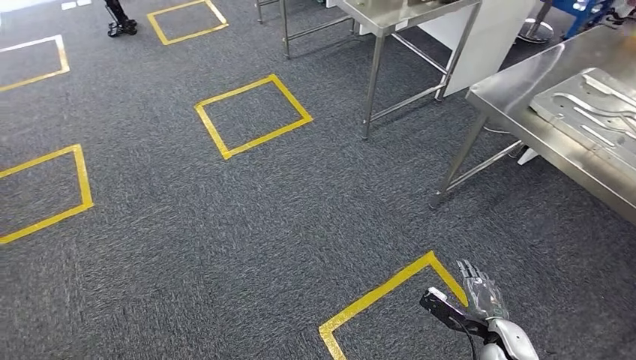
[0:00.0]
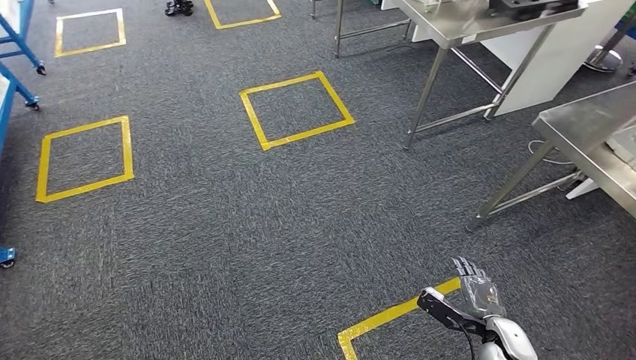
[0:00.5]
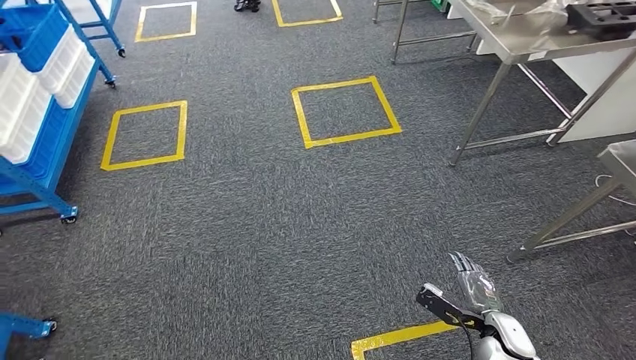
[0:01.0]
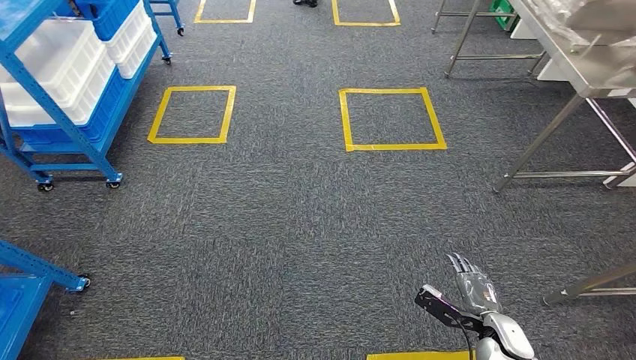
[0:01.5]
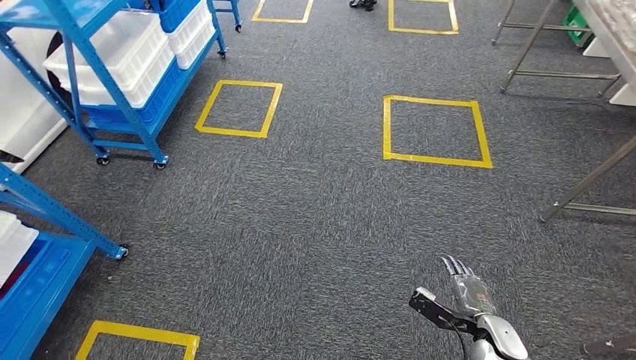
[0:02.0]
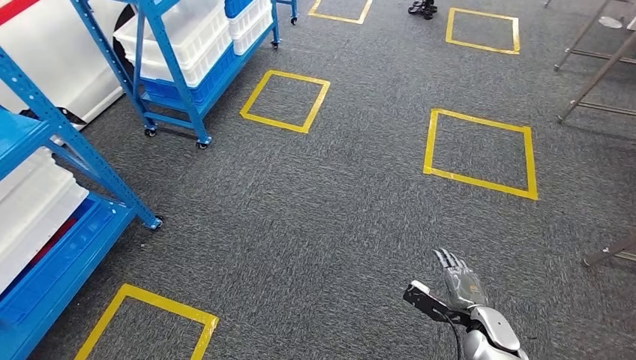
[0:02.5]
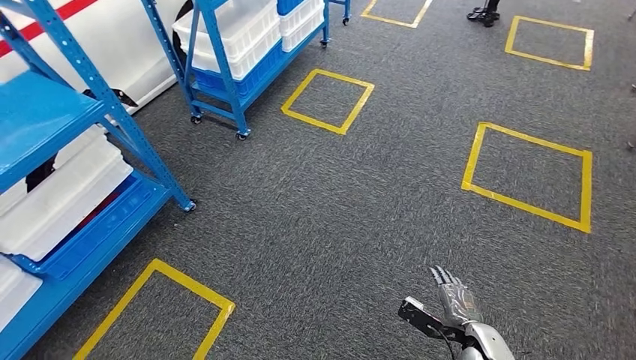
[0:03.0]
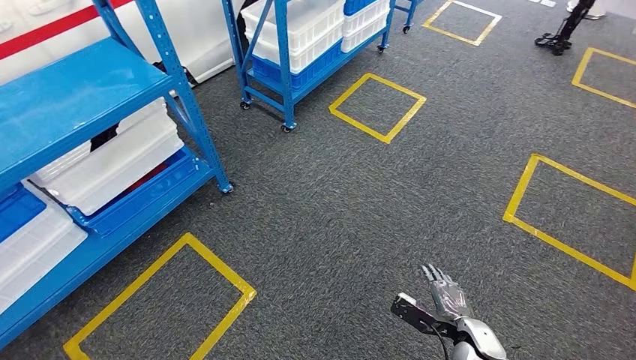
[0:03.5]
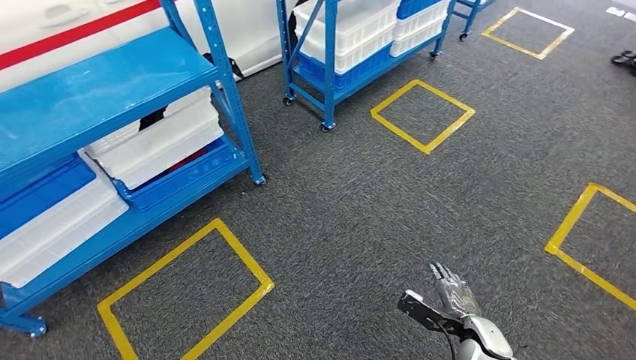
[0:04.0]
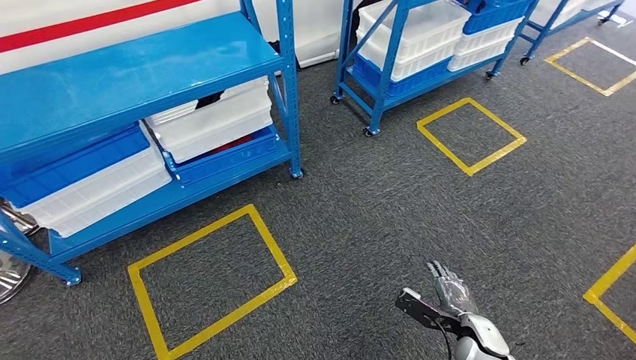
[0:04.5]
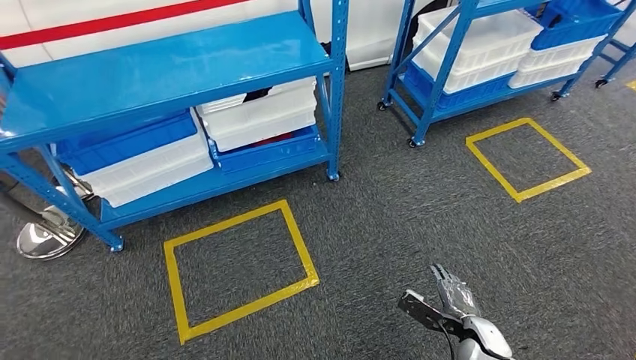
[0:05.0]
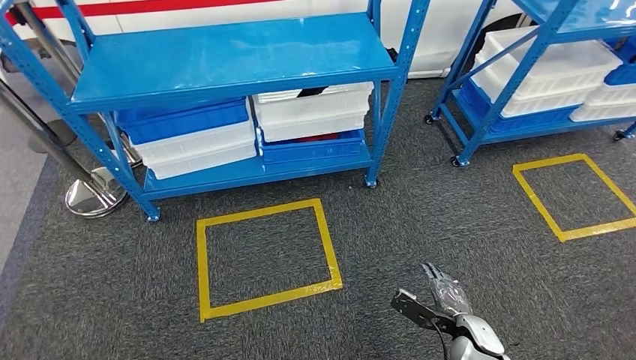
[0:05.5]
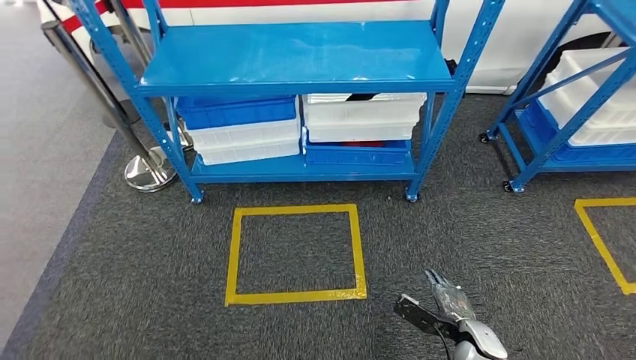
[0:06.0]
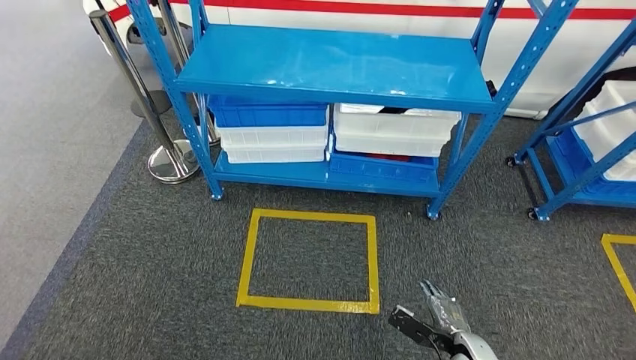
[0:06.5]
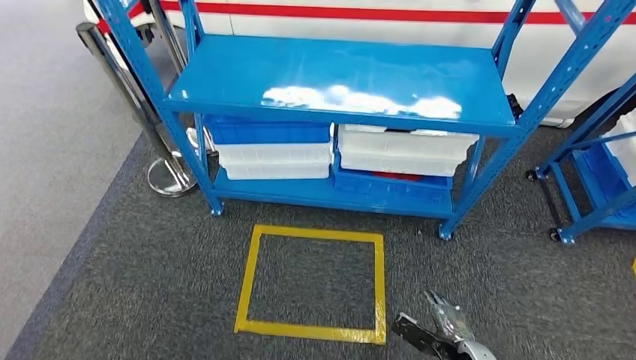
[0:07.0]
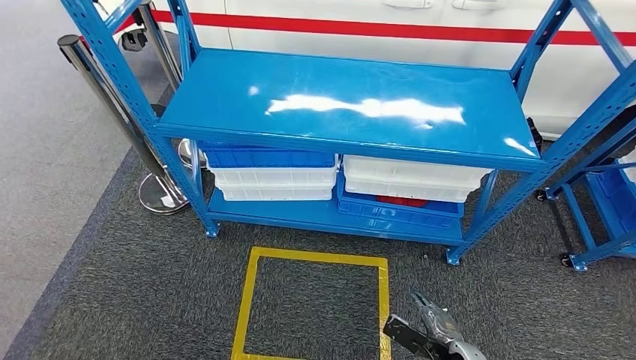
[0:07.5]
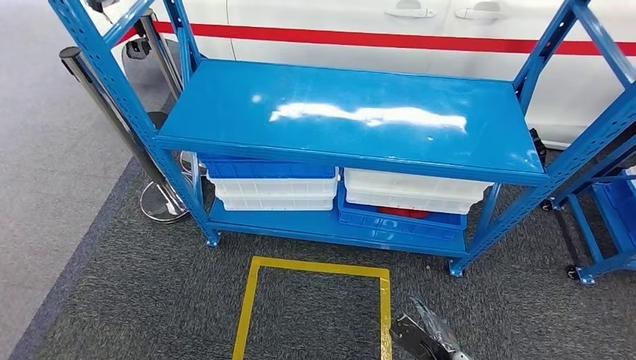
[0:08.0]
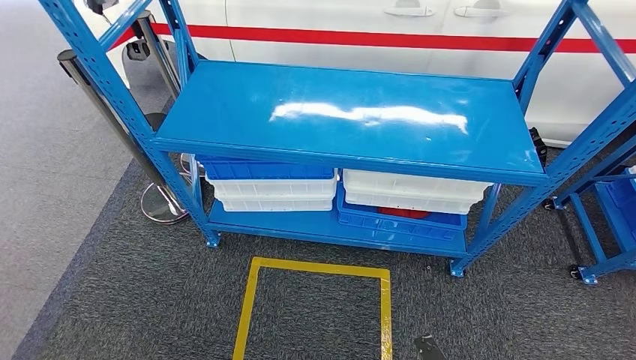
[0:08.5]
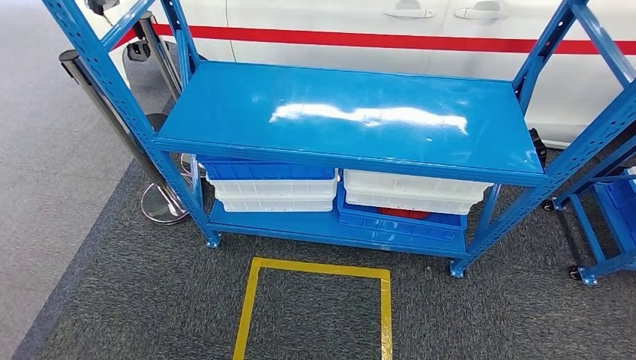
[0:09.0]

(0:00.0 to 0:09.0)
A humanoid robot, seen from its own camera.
Step, 0:00.0 - 0:09.0: Move to the initial position of the shelf.
